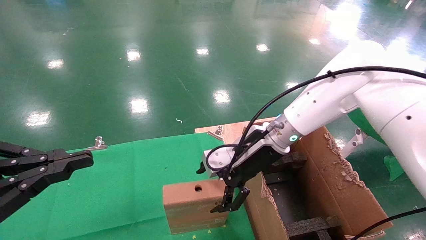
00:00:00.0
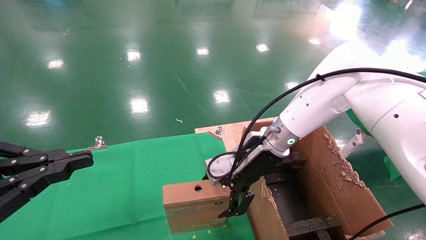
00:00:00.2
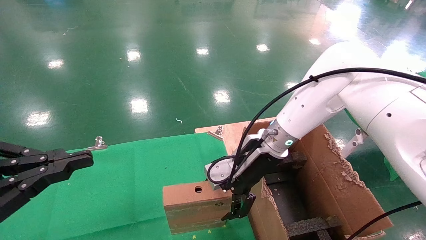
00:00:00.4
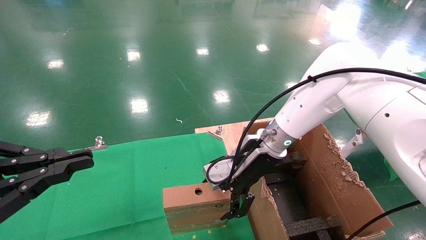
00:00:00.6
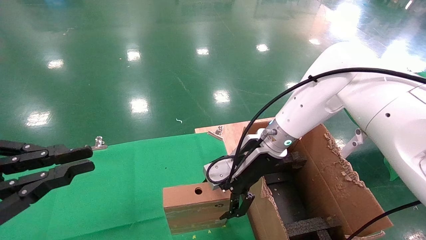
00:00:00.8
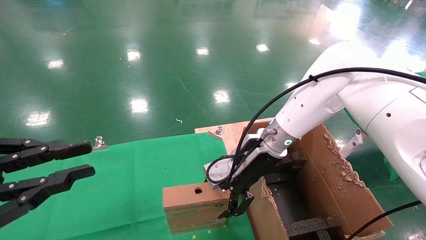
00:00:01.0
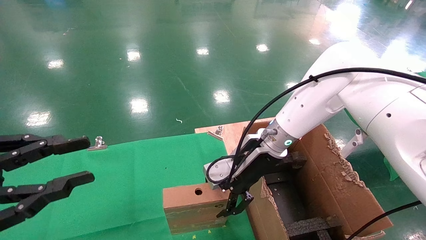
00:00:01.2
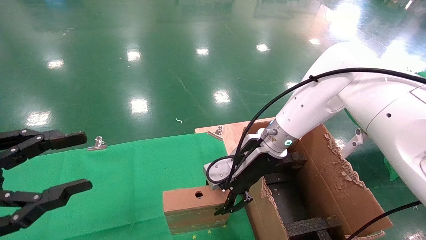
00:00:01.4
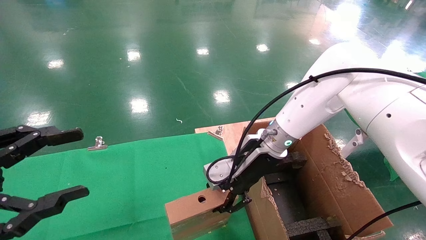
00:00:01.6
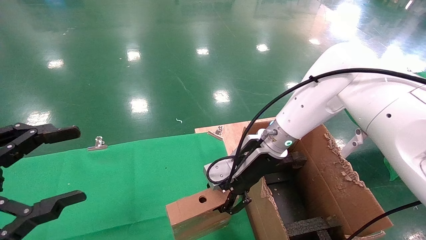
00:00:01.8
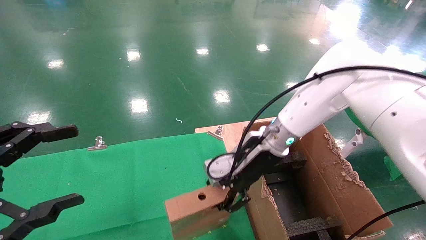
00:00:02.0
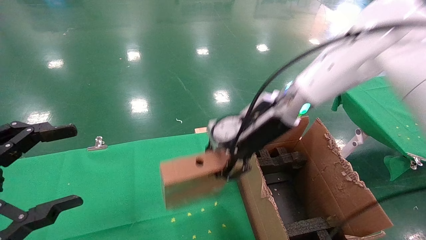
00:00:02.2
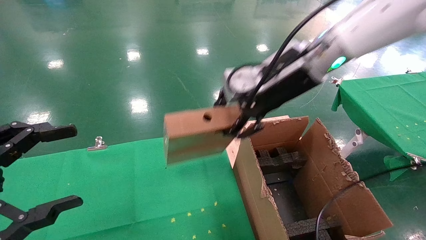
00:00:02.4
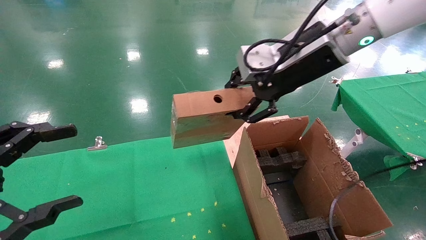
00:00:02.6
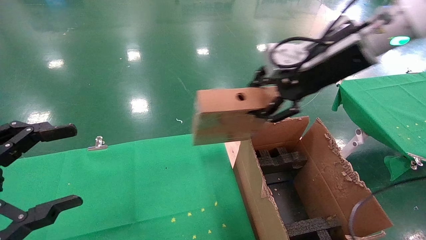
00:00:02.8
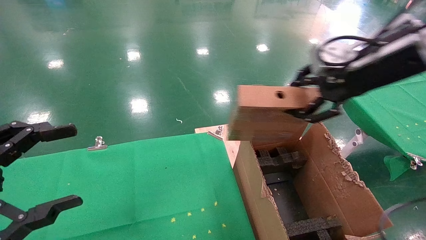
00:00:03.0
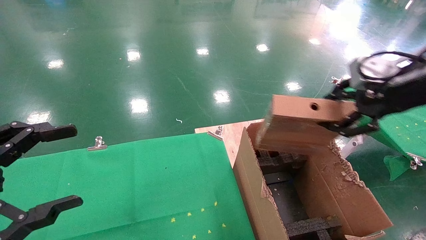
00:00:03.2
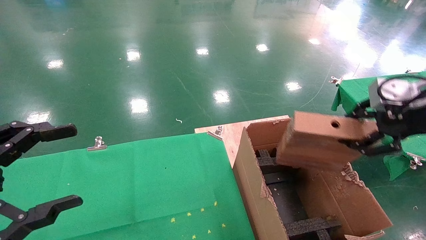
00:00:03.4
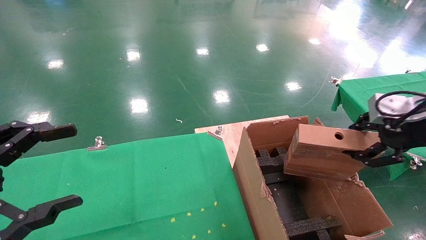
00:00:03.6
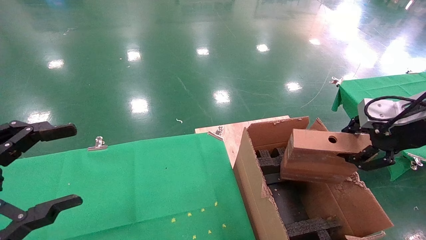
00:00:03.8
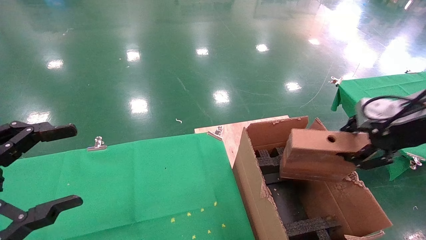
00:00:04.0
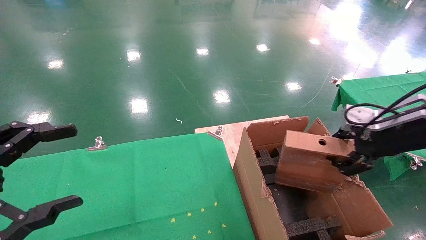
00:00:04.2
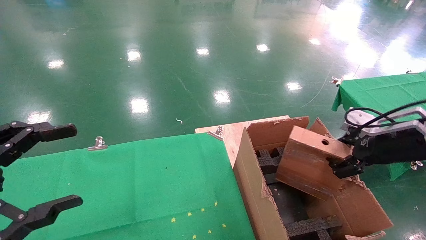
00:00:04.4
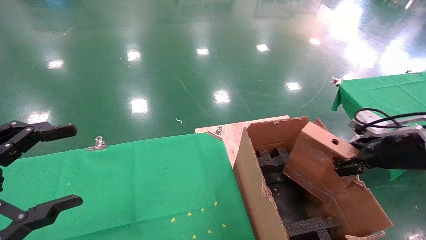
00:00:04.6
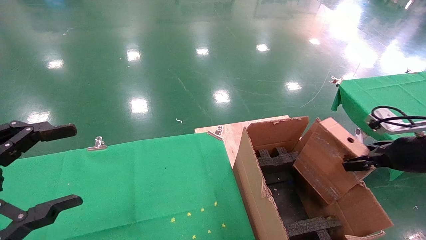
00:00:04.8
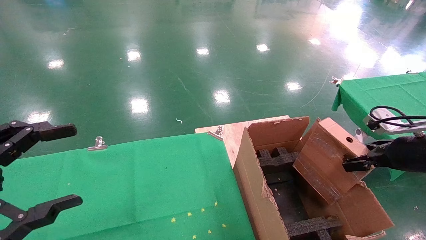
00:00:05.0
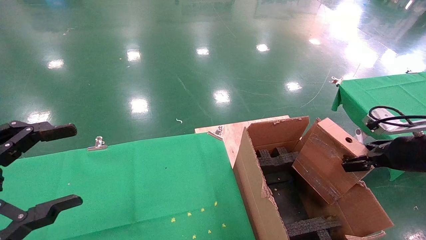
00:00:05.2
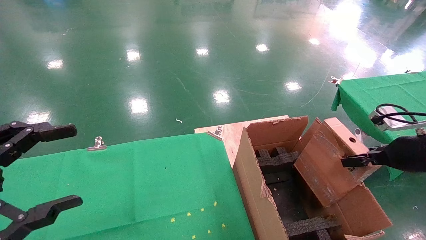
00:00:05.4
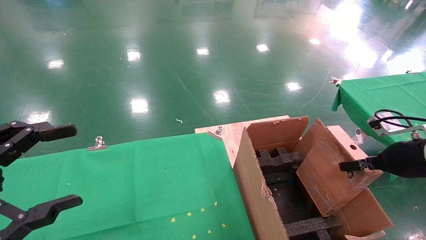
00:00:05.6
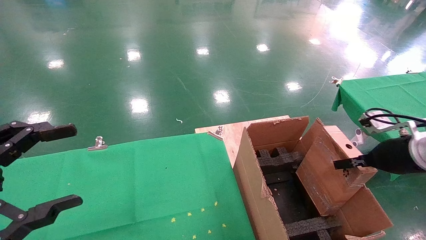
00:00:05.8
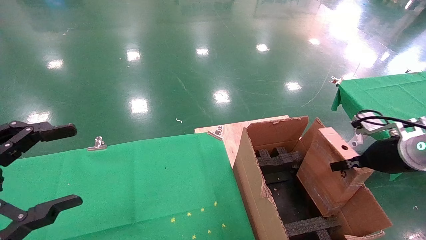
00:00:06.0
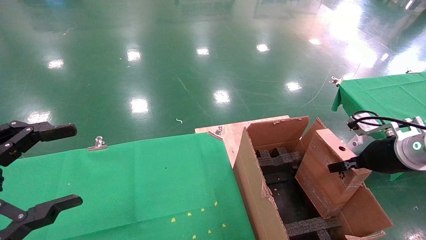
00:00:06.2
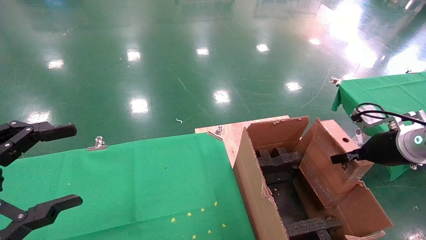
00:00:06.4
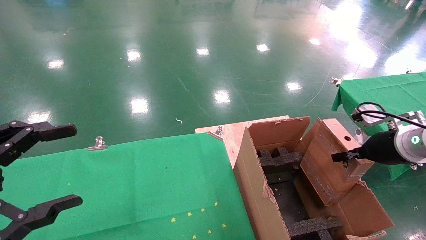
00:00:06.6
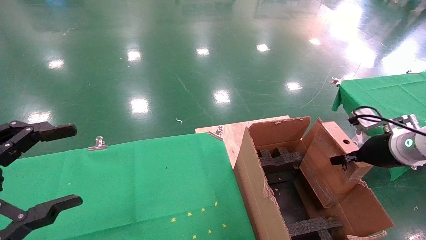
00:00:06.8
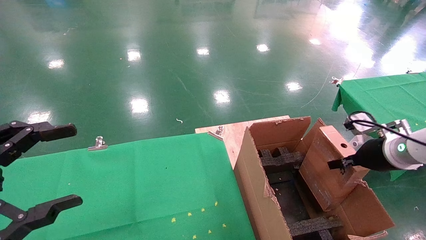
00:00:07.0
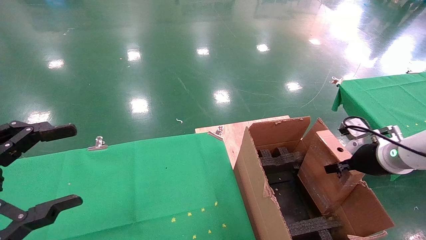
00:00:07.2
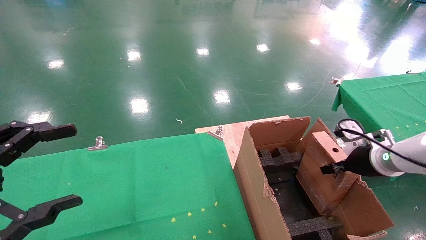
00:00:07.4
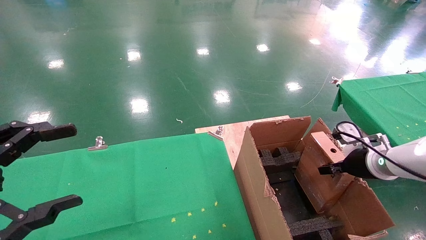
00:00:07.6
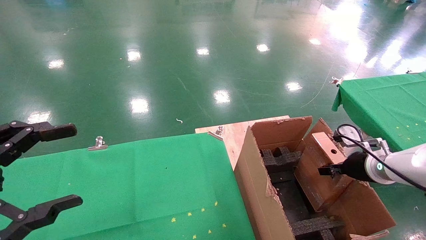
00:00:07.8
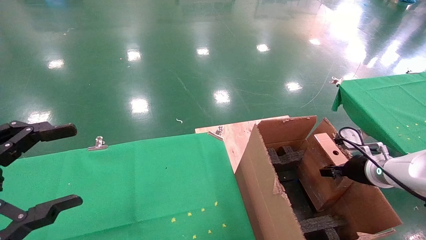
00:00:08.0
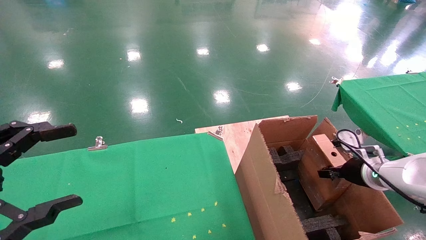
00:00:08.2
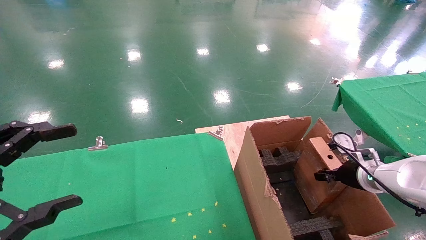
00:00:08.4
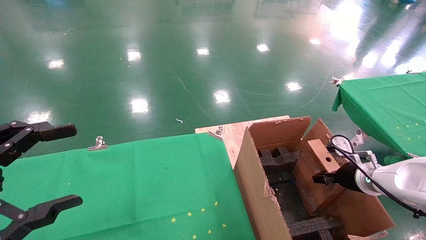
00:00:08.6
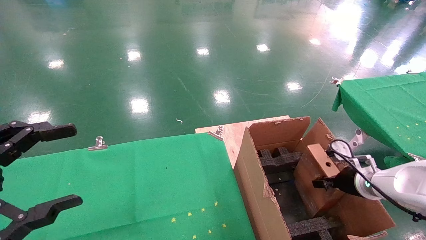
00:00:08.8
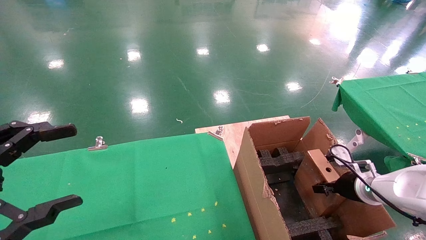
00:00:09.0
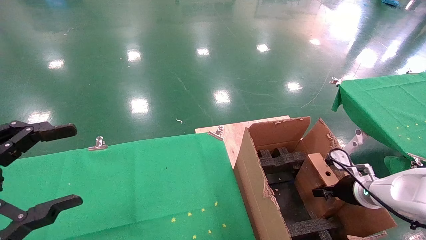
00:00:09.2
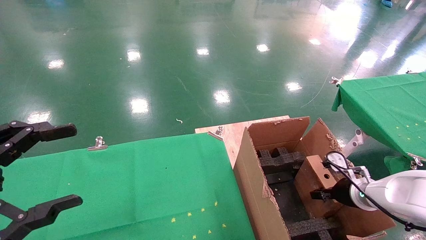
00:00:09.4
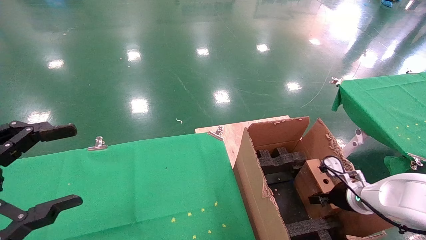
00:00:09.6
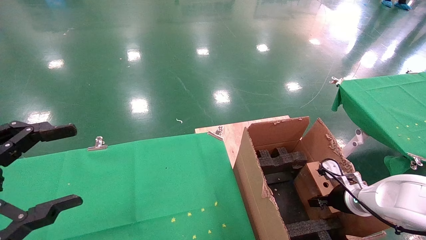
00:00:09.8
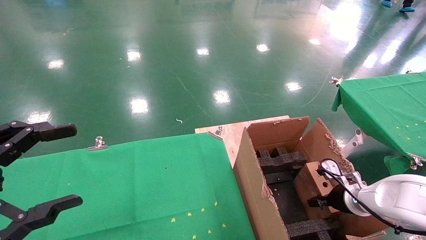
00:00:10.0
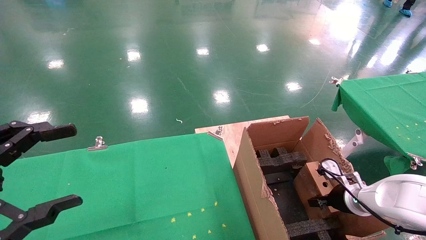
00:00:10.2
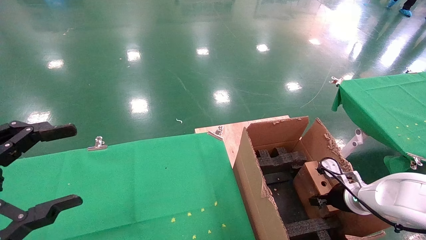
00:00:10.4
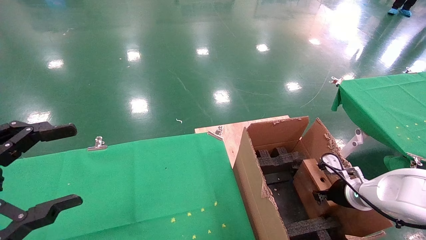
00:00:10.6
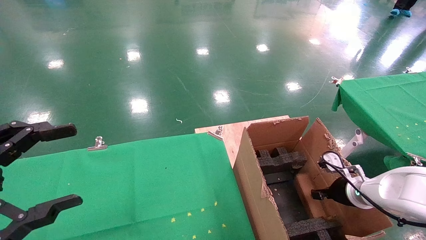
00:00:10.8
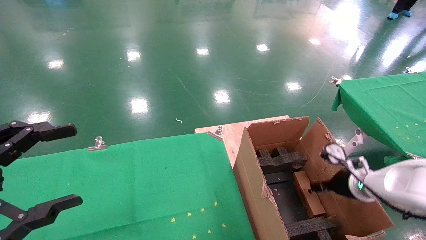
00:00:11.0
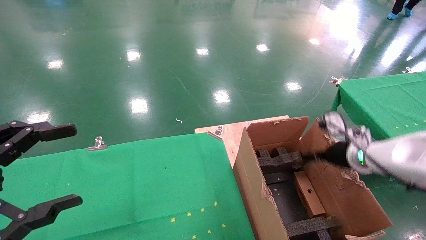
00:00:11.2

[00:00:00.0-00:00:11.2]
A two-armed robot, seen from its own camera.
Task of the whole recording: using a robotic arm to pick up a cardboard box and palace it the carton.
00:00:00.0 to 00:00:01.6: The left gripper opens. The right gripper closes.
00:00:01.6 to 00:00:03.2: The right gripper travels to the right, upward and backward by about 30 cm. The left gripper opens.
00:00:03.2 to 00:00:04.8: The right gripper heads downward and to the right, covering some 15 cm.
00:00:06.4 to 00:00:08.0: The right gripper shifts approximately 10 cm downward.
00:00:08.0 to 00:00:09.6: The right gripper heads downward, covering roughly 10 cm.
00:00:09.6 to 00:00:11.2: The right gripper heads upward, covering roughly 10 cm, and opens its fingers.

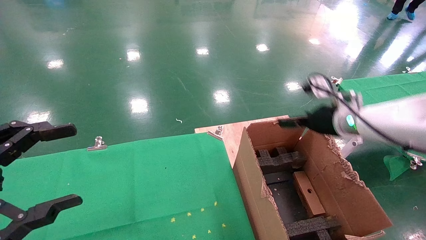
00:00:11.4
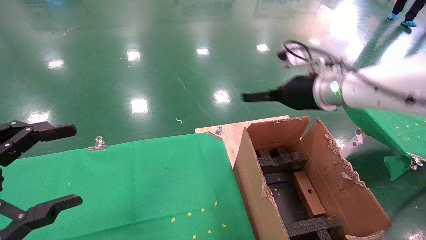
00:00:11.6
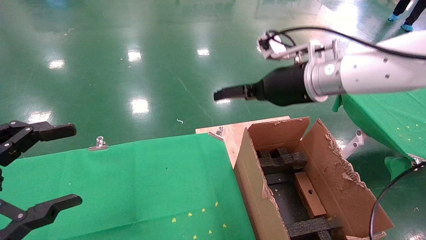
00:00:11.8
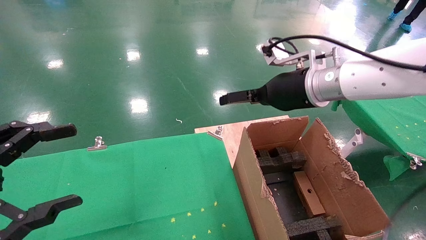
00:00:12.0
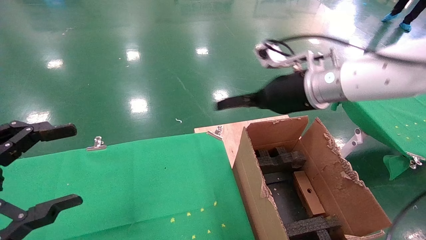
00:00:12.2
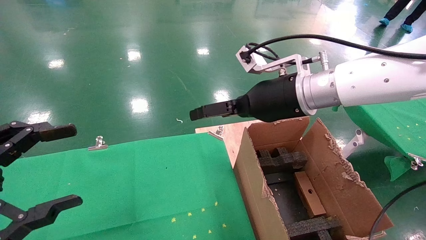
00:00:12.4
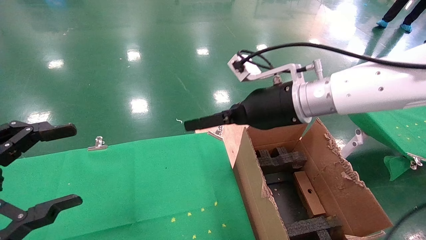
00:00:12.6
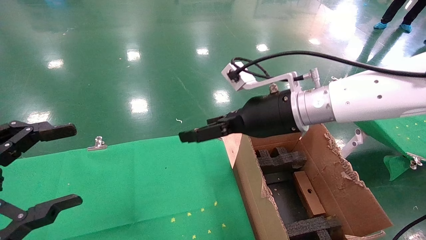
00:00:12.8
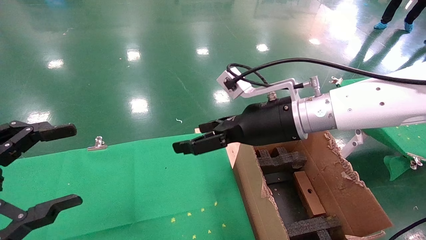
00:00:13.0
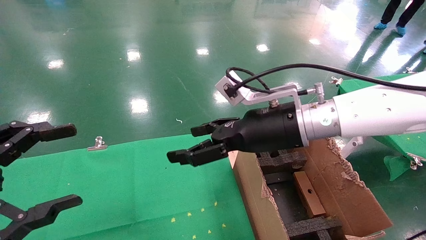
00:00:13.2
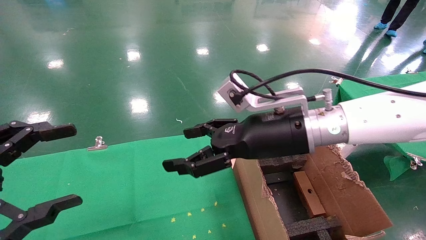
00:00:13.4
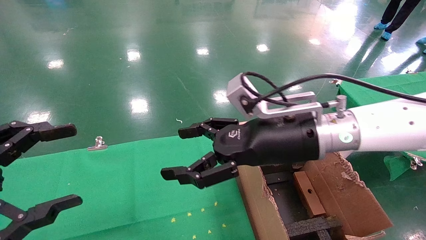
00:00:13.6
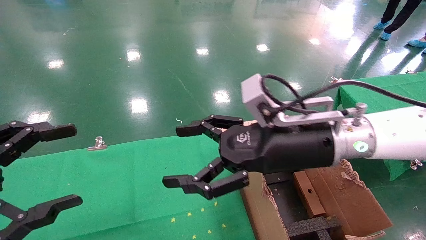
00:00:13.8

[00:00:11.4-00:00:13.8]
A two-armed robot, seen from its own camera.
Task of the whole recording: using a robotic arm to pick up a cardboard box and palace it the carton.
00:00:11.4 to 00:00:12.6: The right gripper moves to the left and upward, roughly 15 cm.
00:00:12.6 to 00:00:13.8: The right gripper heads backward, covering approximately 10 cm.

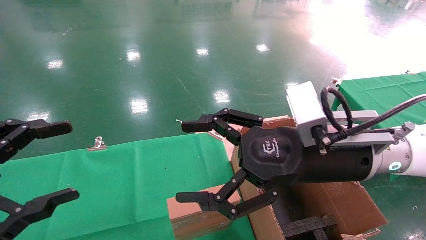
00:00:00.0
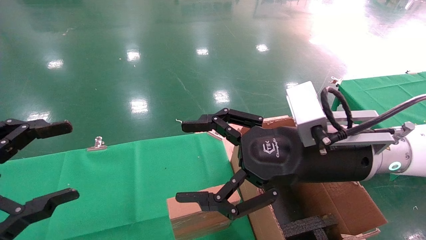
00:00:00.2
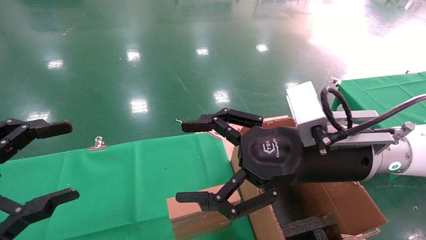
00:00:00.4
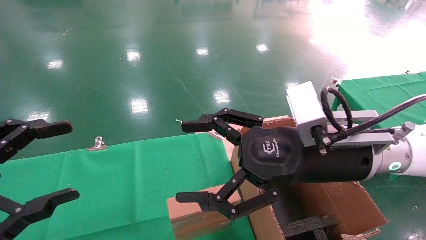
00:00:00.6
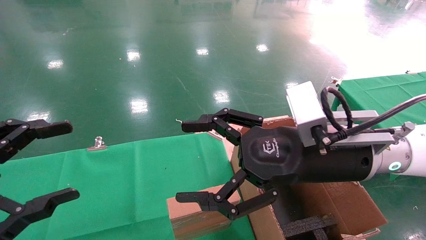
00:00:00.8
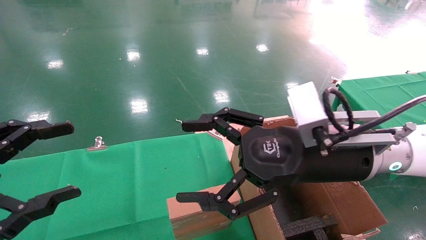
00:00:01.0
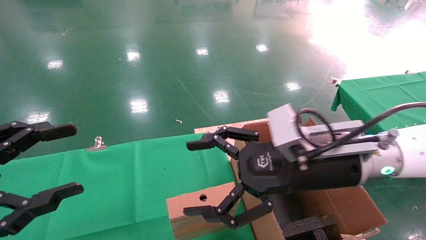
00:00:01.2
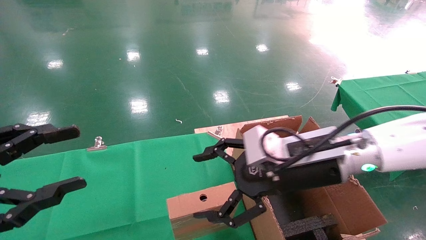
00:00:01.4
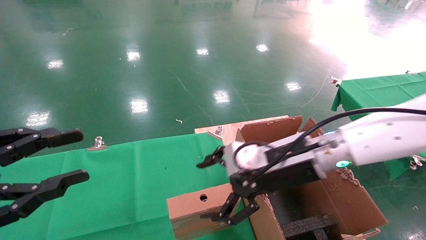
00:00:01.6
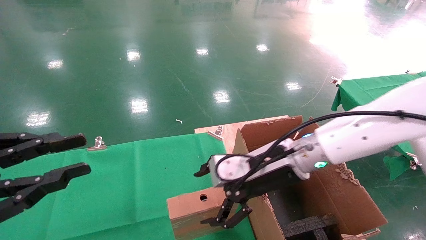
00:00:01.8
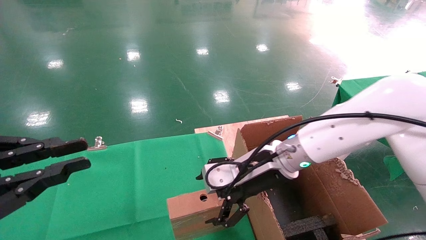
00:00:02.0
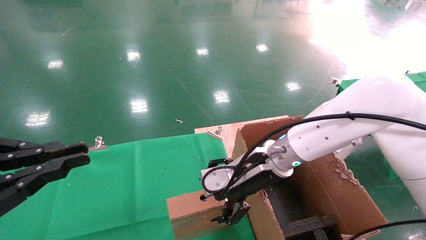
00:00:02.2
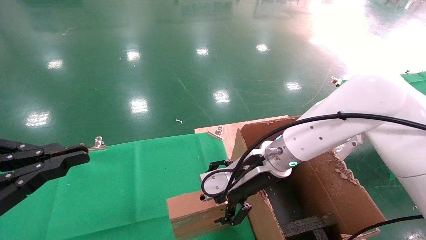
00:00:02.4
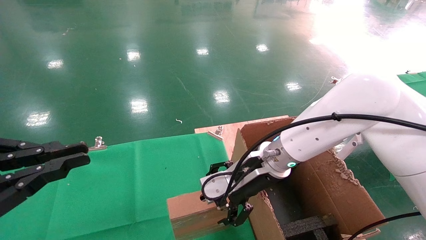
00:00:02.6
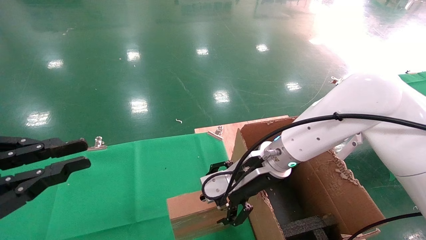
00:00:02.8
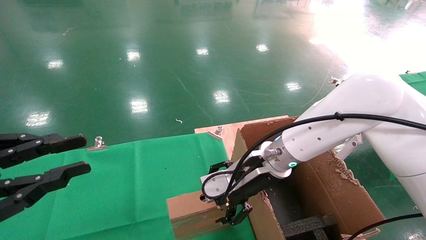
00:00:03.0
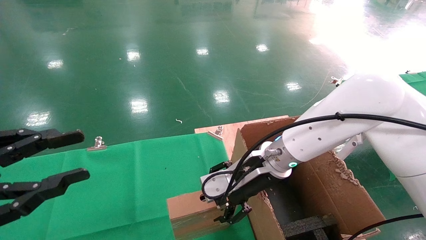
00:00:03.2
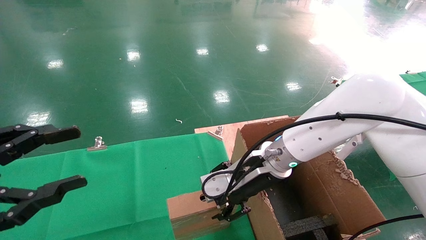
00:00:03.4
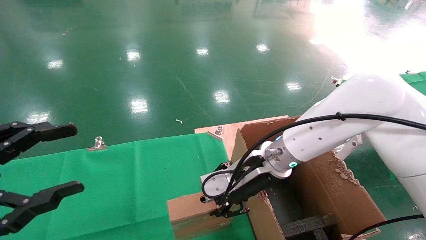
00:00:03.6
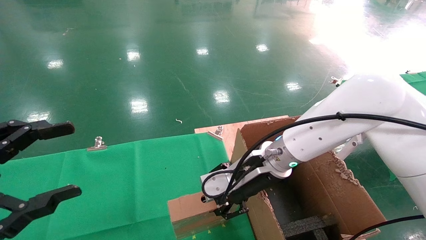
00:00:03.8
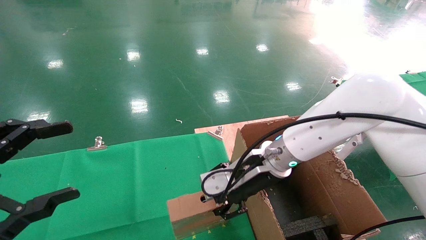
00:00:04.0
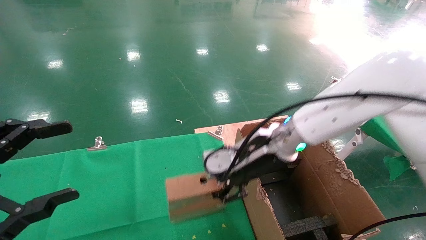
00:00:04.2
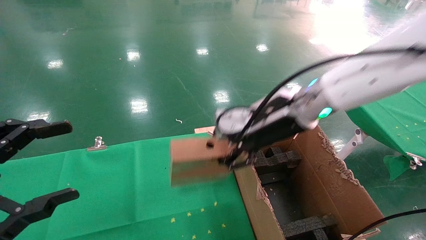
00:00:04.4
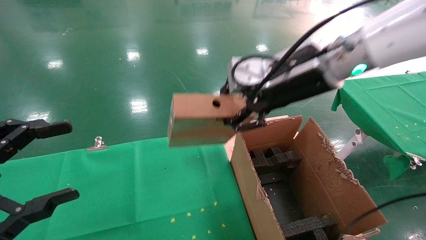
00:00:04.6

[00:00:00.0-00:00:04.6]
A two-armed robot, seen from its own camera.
Task of the whole recording: using a robotic arm to pick up a cardboard box and palace it the carton.
Step, 00:00:01.4 to 00:00:03.6: Pick up the mouse and the power cord paper box.
00:00:00.0 to 00:00:01.6: The right gripper shifts approximately 5 cm forward. Meanwhile the left gripper closes up.
00:00:01.6 to 00:00:03.0: The right gripper ends up roughly 5 cm from where it was; the left gripper closes its fingers.
00:00:03.0 to 00:00:04.6: The left gripper opens up, while the right gripper shifts some 15 cm upward, and closes.
